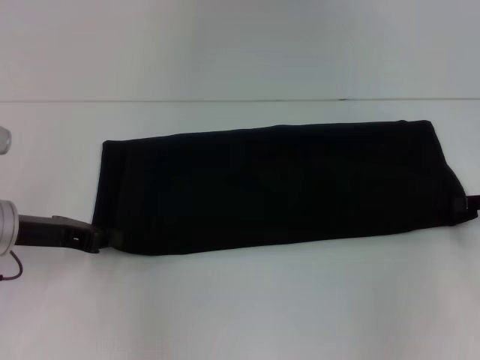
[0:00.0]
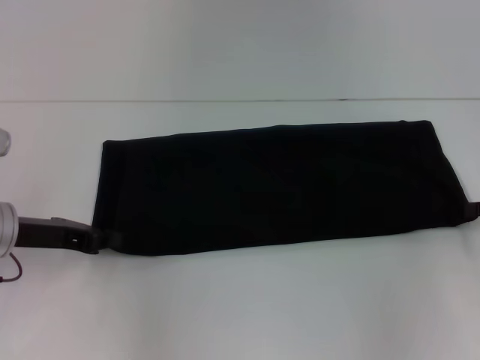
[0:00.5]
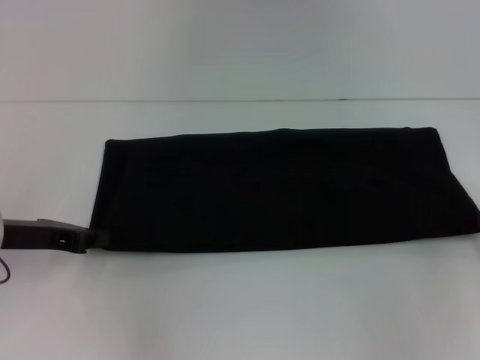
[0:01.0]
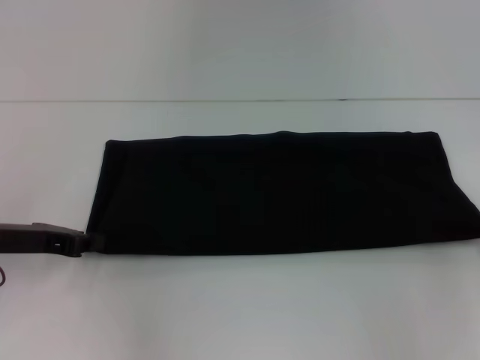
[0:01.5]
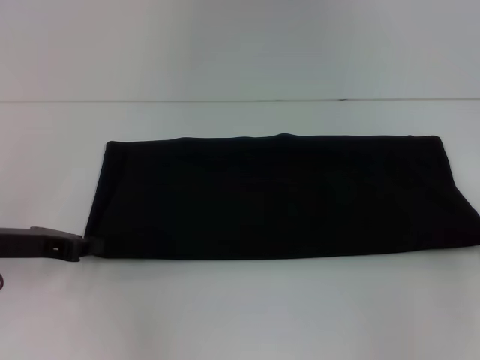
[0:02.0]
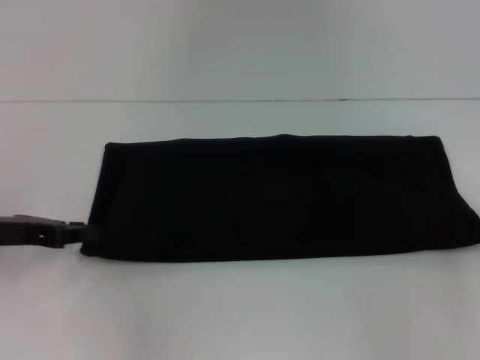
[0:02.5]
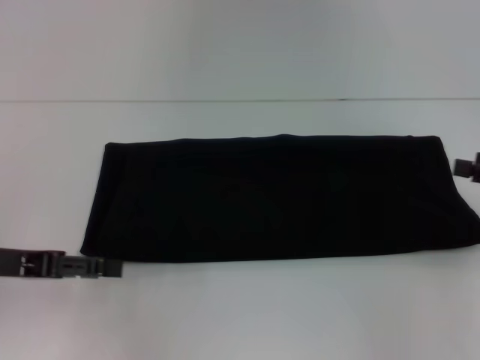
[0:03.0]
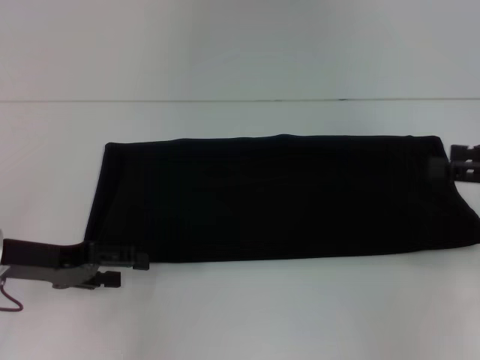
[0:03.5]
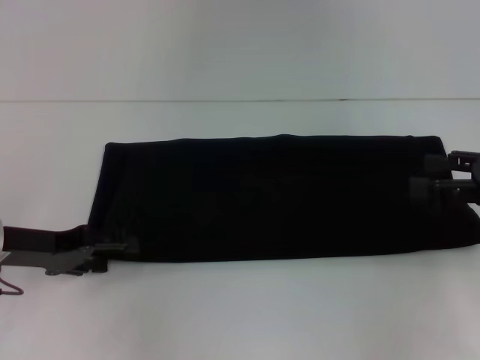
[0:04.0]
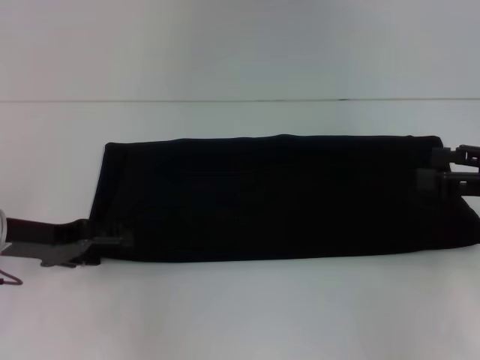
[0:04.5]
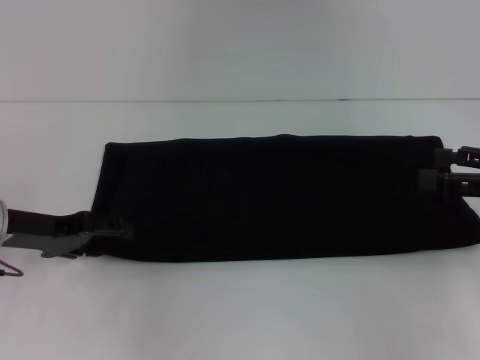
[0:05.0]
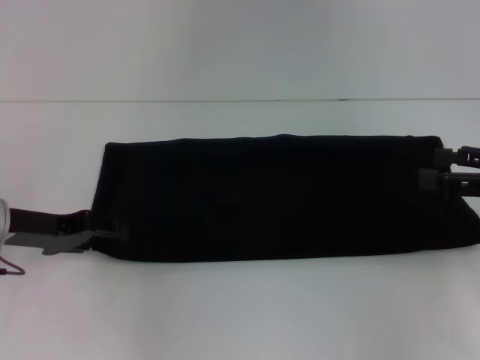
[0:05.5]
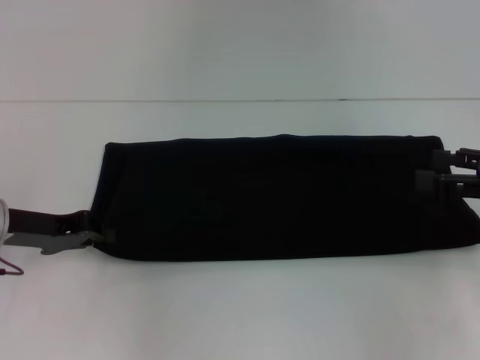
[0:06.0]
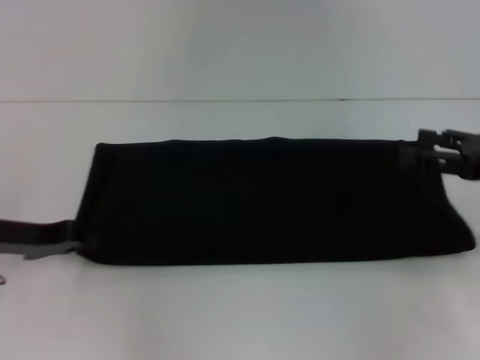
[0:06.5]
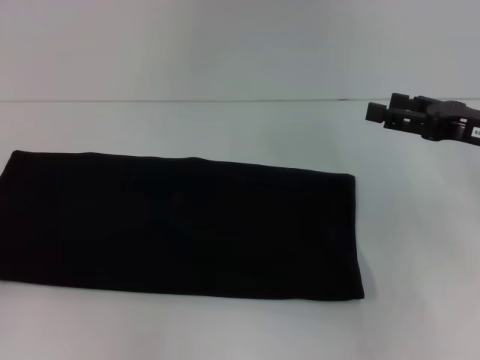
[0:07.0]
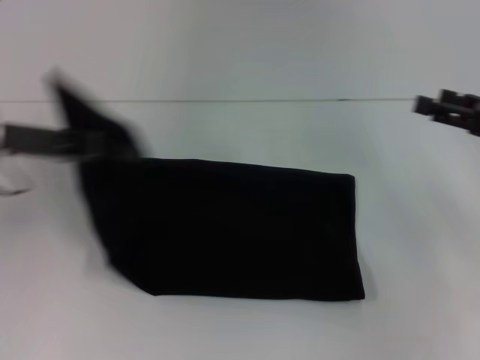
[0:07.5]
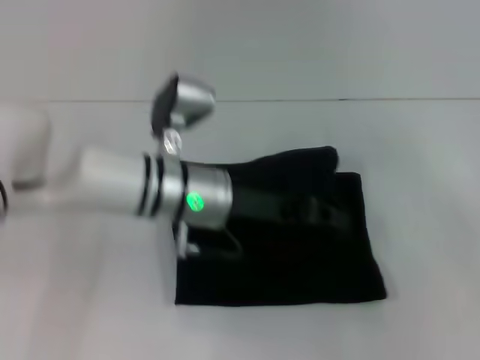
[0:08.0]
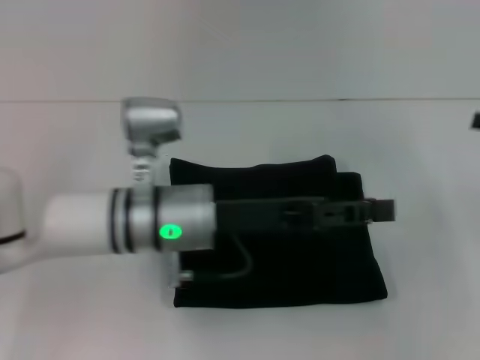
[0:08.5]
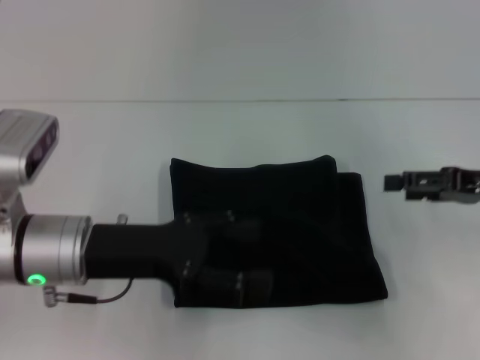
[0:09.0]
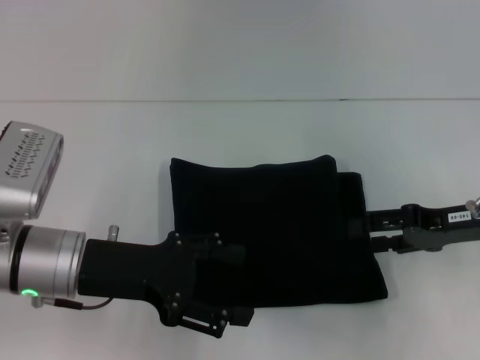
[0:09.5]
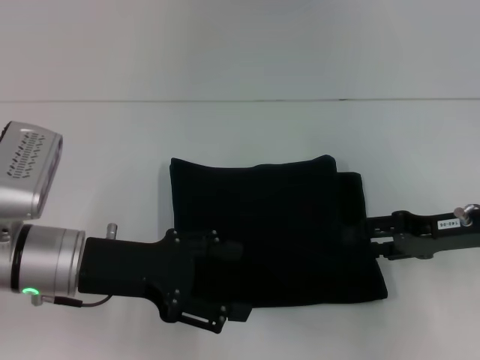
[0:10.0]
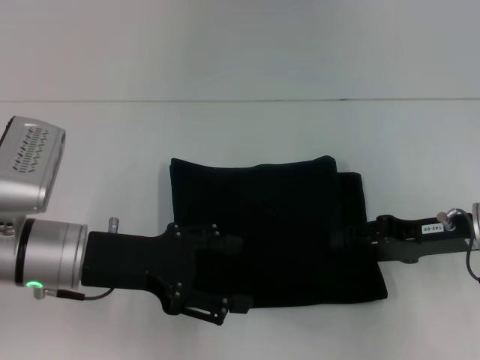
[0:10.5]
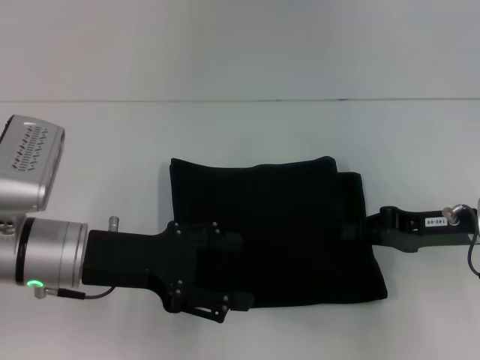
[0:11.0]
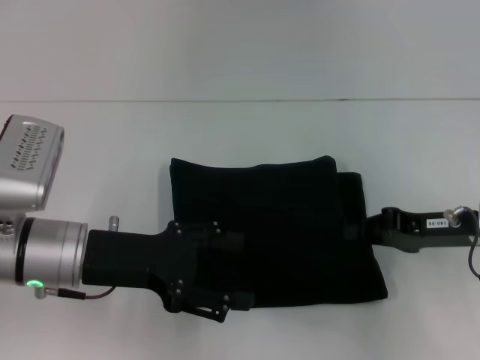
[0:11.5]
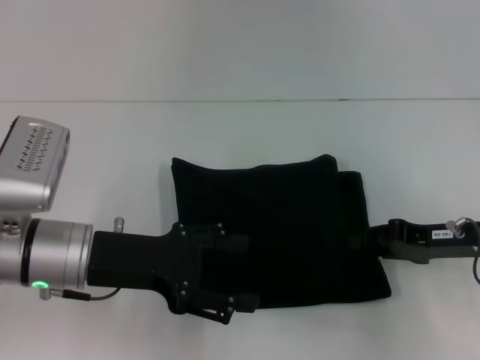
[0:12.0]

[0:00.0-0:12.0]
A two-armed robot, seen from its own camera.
Step, 0:00.0 to 0:08.5: Fold the clothes with your left hand.
0:00.0 to 0:02.0: The right gripper closes its fingers.
0:02.0 to 0:04.0: The left gripper opens. The right gripper moves upward and to the left, about 10 cm, and opens.
0:04.0 to 0:06.0: The left gripper closes its fingers.
0:06.0 to 0:08.0: The left gripper heads to the right, covering about 20 cm. The right gripper is displaced to the right by about 5 cm.
0:08.0 to 0:10.0: The right gripper is displaced to the left and downward by roughly 15 cm, while the left gripper goes some 15 cm to the left and backward, and opens its fingers.
0:10.0 to 0:12.0: The right gripper closes its fingers.

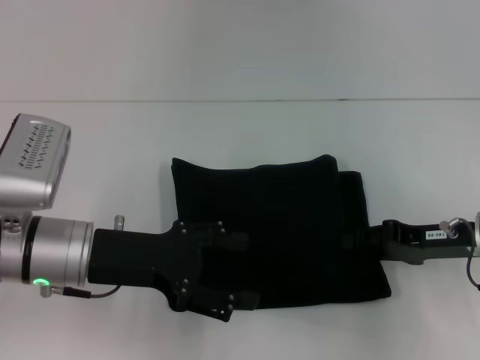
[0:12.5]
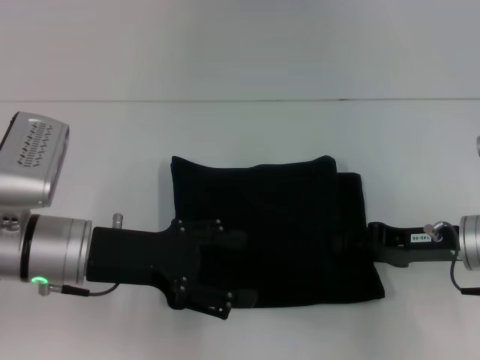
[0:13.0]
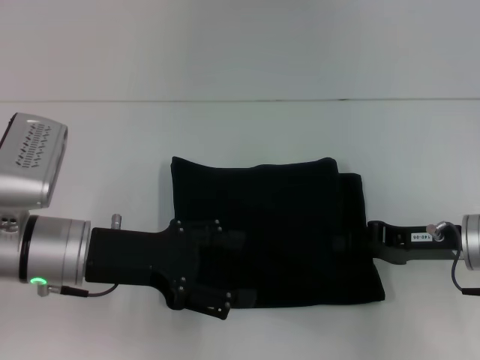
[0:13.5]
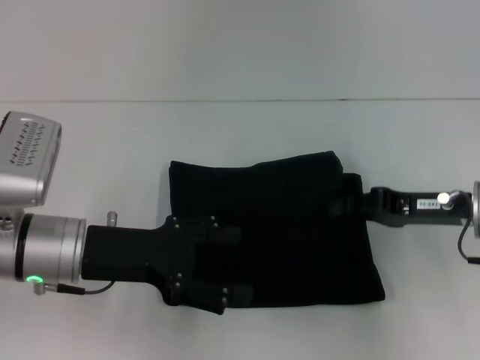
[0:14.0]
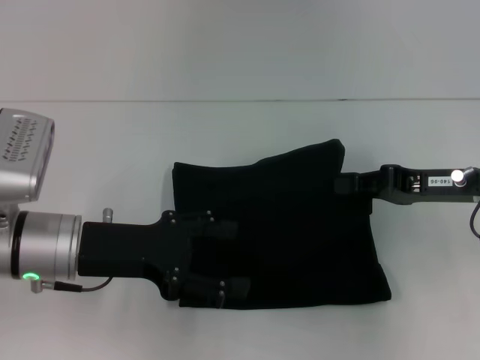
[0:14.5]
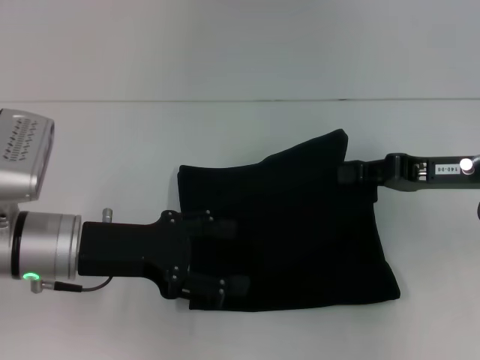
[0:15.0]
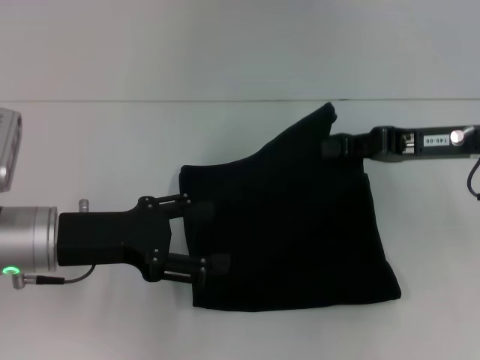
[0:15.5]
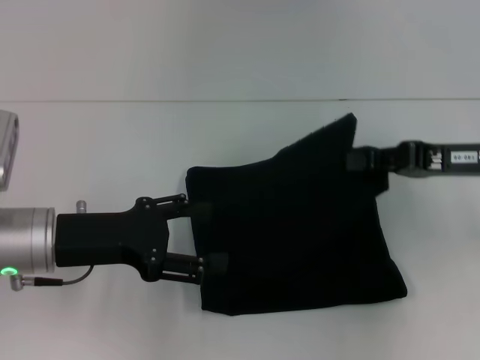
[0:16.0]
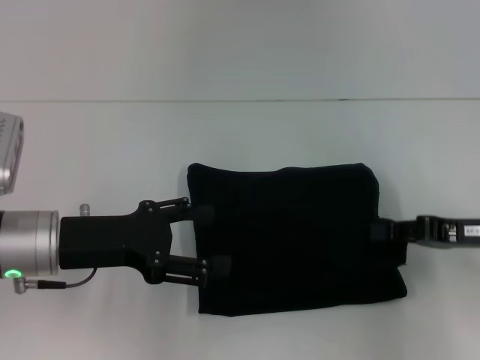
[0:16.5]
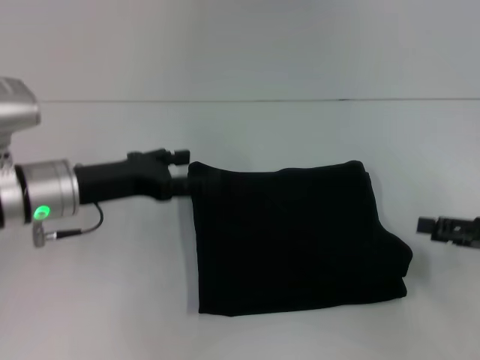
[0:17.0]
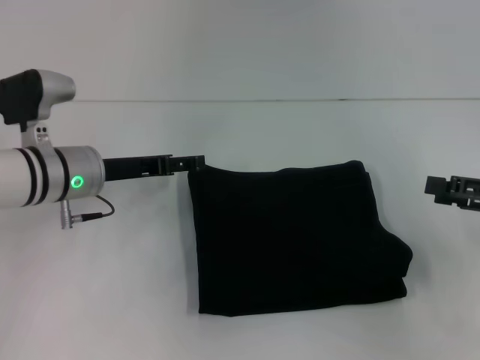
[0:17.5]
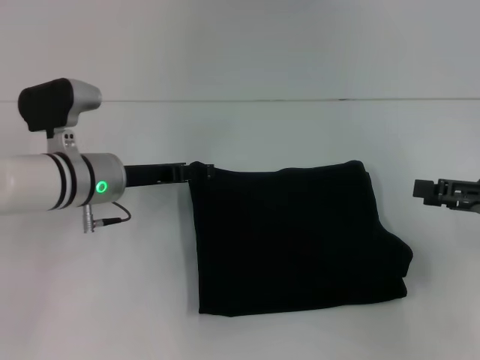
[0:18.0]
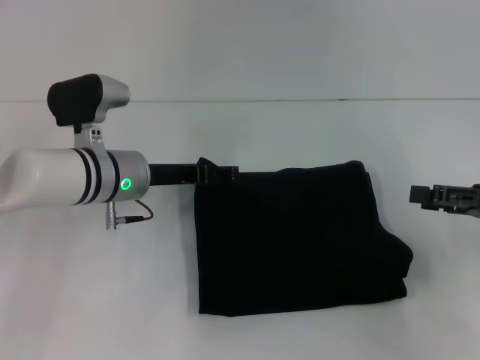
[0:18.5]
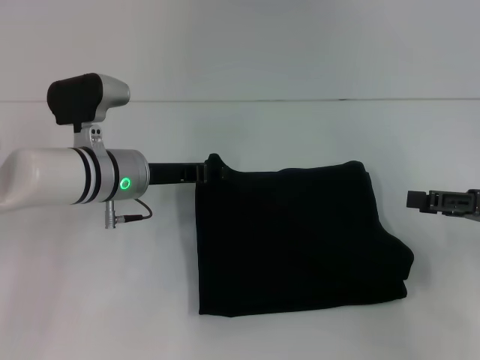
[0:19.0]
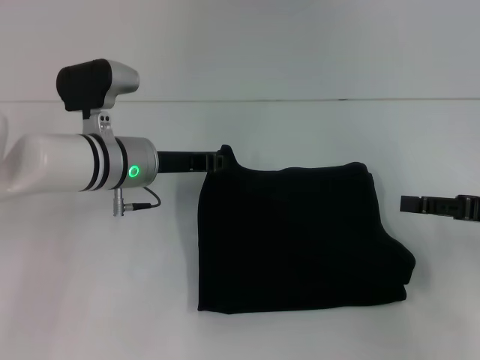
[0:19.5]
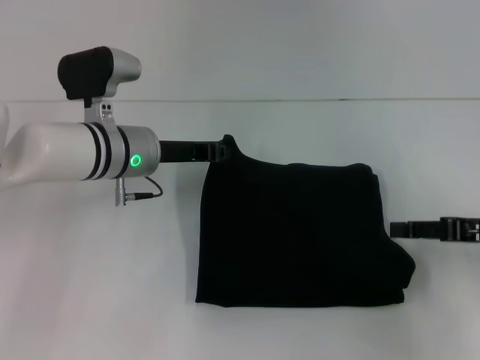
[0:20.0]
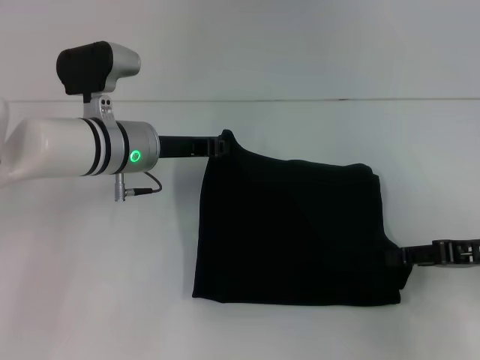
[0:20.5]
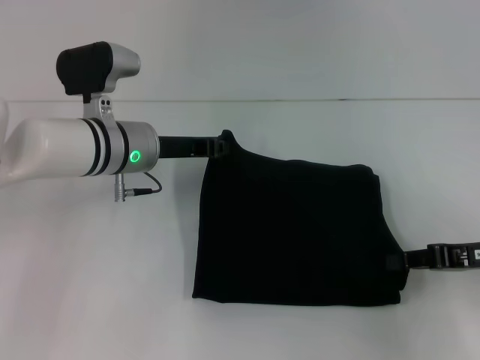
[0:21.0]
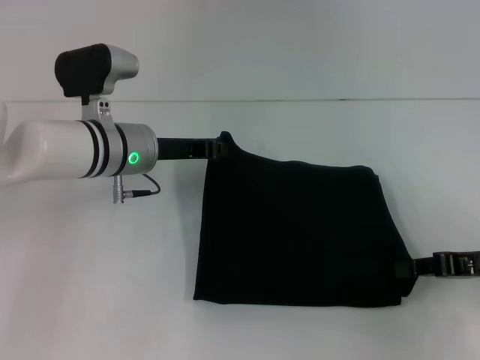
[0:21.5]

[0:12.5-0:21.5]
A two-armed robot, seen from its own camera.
0:12.5 to 0:14.5: The right gripper goes roughly 5 cm upward, and closes.
0:14.5 to 0:17.0: The right gripper heads to the right and backward, covering some 10 cm, and opens up.
0:17.0 to 0:19.5: The left gripper moves to the right and forward, roughly 10 cm, and closes up.
0:19.5 to 0:21.5: The right gripper closes up.

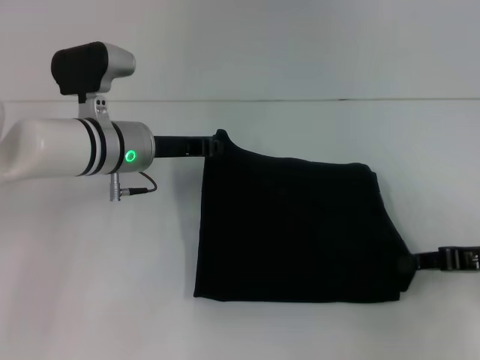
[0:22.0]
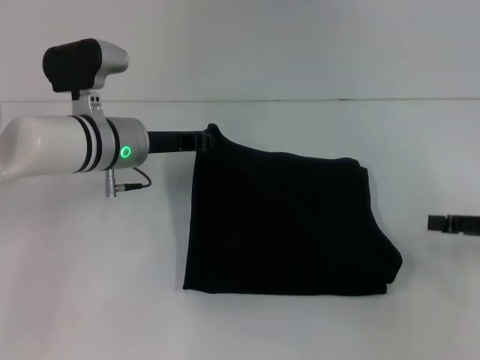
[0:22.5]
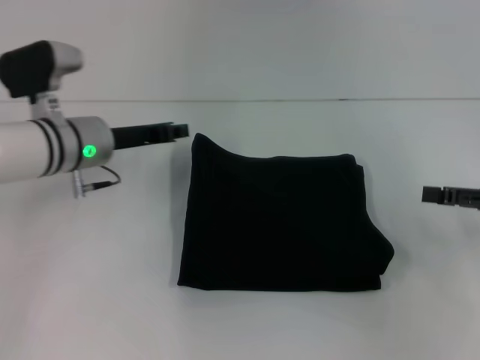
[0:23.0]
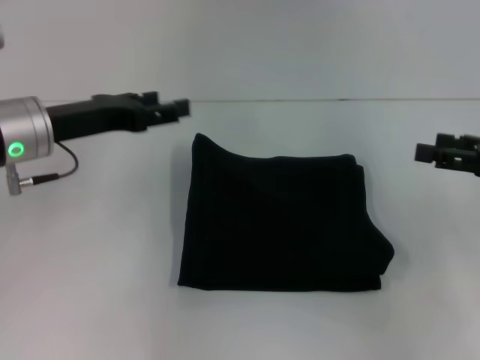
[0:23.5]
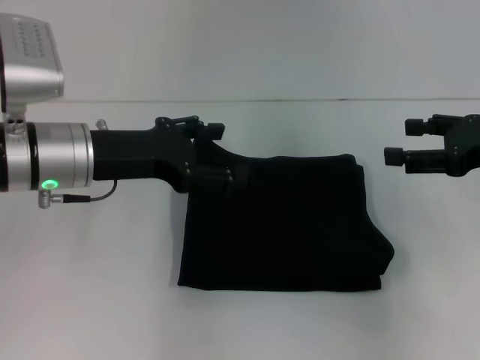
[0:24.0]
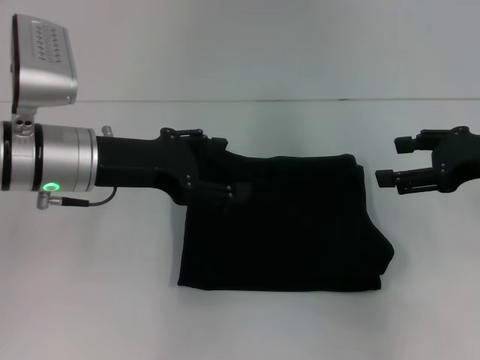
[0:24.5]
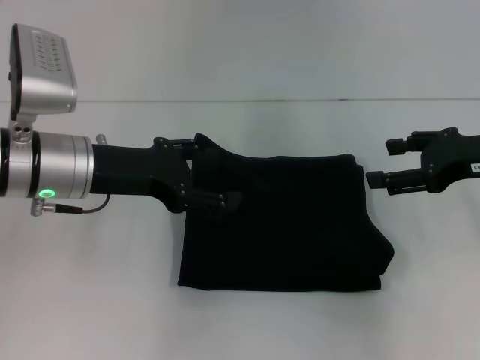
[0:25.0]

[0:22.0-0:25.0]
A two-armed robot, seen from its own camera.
0:22.0 to 0:23.5: The right gripper heads upward, covering some 5 cm, and opens, while the left gripper travels to the left and upward by roughly 10 cm, and opens.
0:23.5 to 0:25.0: The right gripper is displaced to the left by some 5 cm.

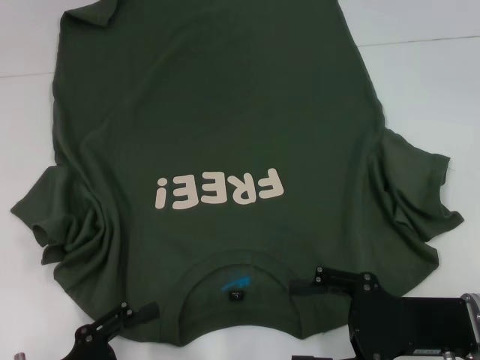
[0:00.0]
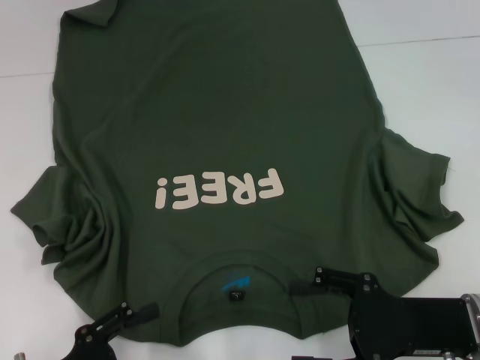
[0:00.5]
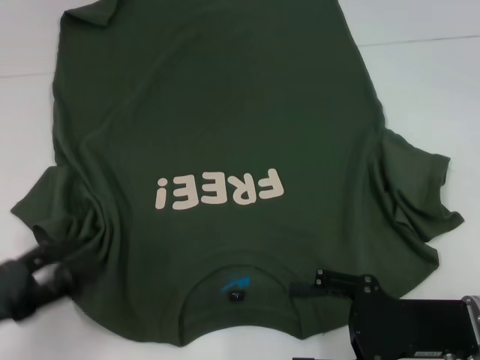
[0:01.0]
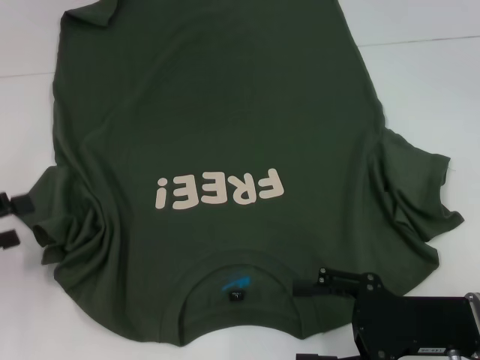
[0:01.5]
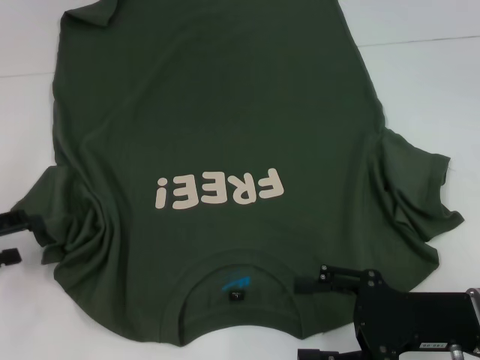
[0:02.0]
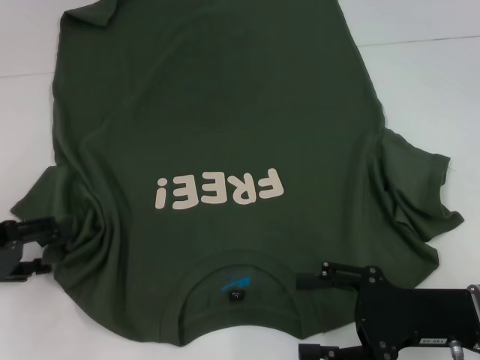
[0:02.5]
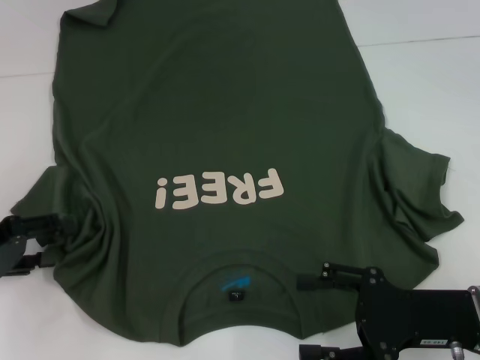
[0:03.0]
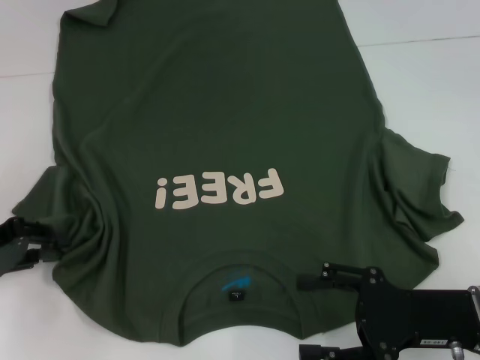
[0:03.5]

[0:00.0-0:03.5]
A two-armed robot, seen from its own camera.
0:00.0 to 0:02.0: The left gripper heads forward, to the left and upward, covering some 20 cm.
0:02.0 to 0:03.5: The left gripper closes.
